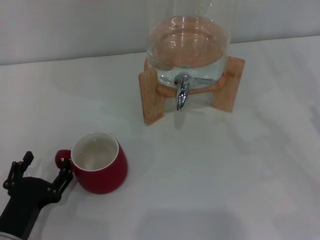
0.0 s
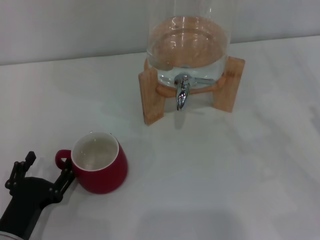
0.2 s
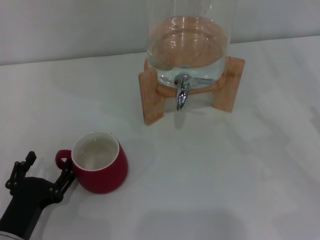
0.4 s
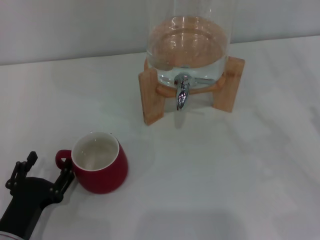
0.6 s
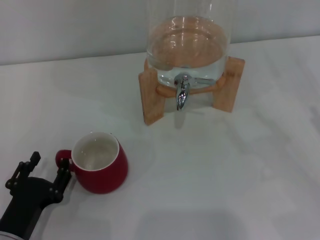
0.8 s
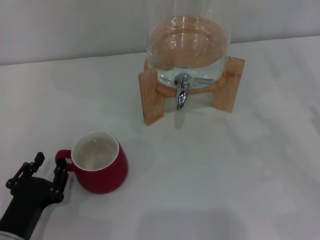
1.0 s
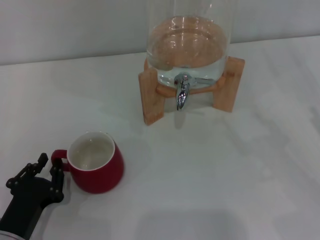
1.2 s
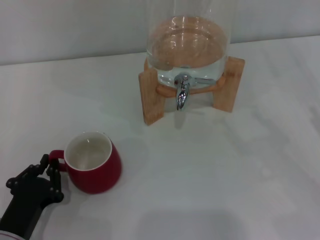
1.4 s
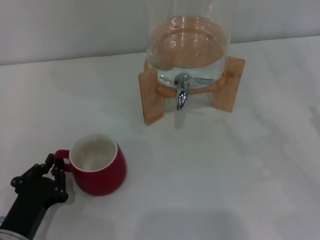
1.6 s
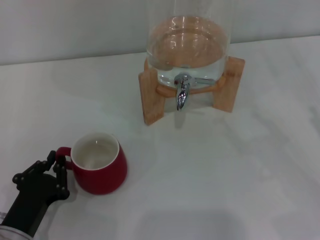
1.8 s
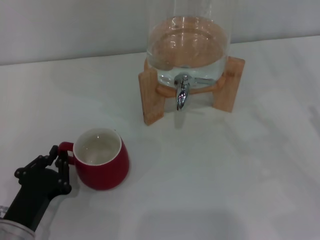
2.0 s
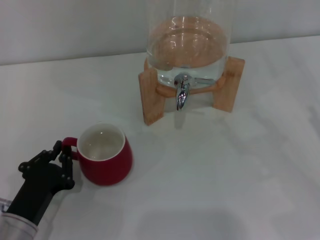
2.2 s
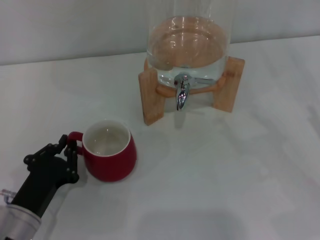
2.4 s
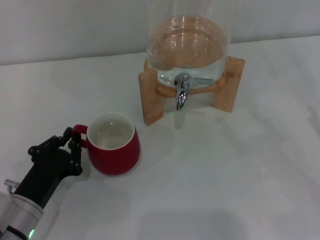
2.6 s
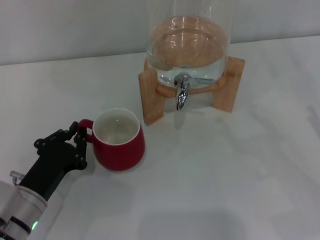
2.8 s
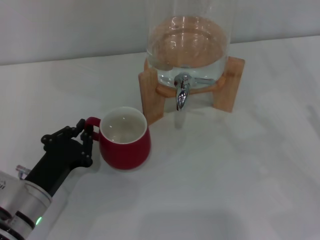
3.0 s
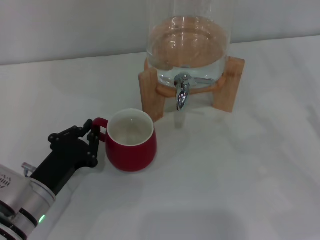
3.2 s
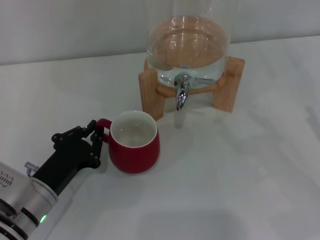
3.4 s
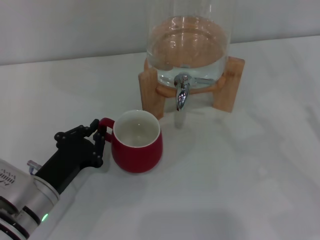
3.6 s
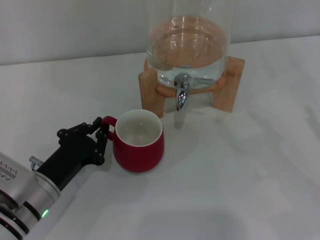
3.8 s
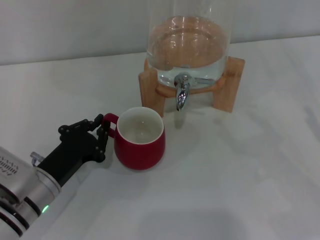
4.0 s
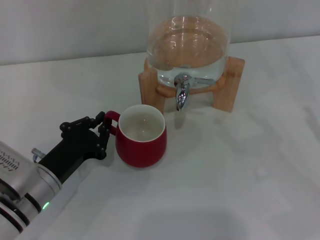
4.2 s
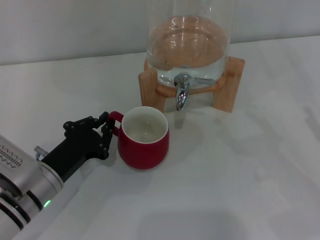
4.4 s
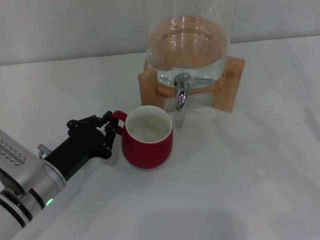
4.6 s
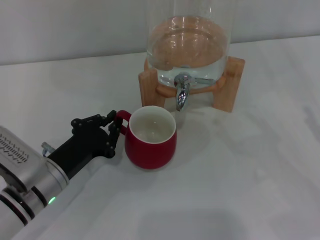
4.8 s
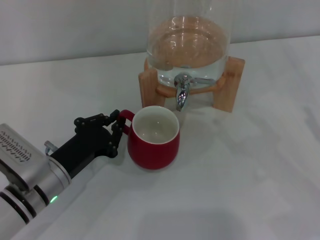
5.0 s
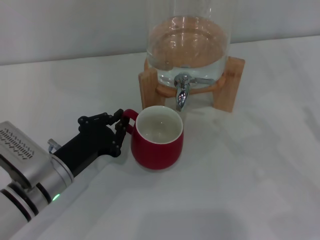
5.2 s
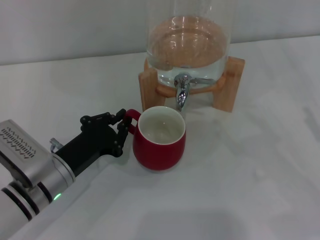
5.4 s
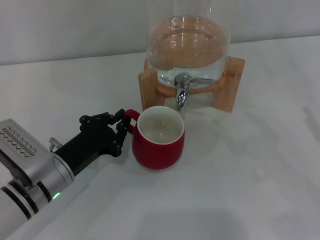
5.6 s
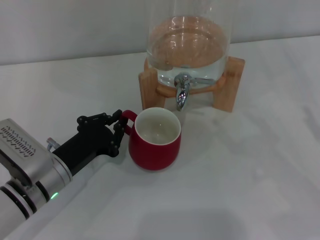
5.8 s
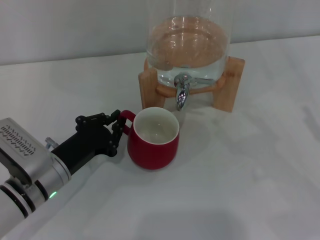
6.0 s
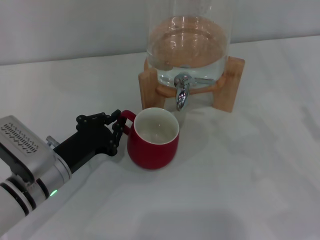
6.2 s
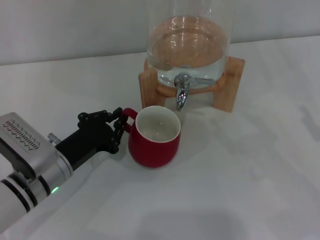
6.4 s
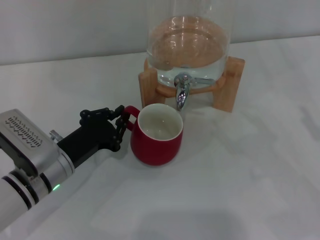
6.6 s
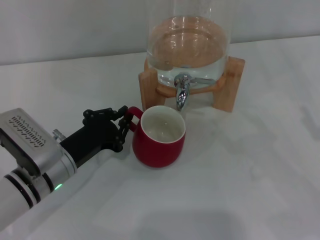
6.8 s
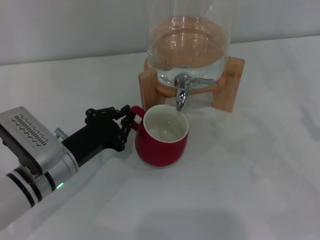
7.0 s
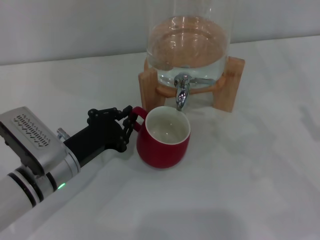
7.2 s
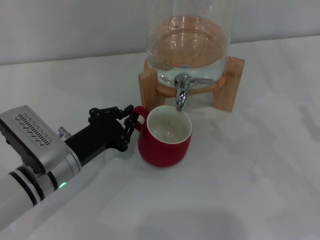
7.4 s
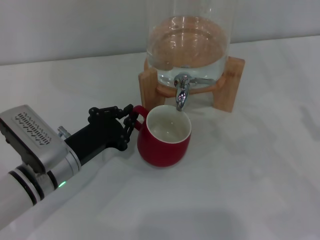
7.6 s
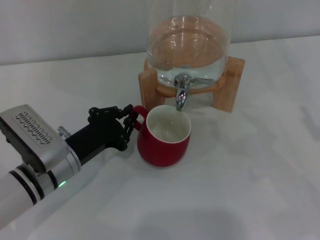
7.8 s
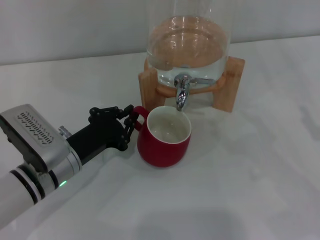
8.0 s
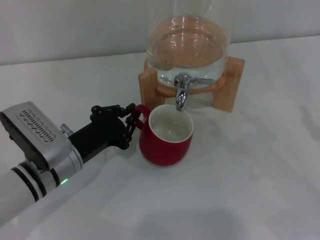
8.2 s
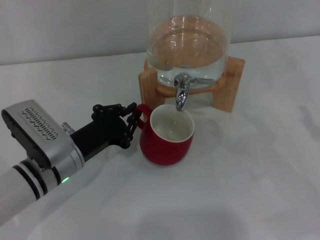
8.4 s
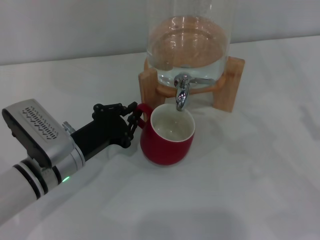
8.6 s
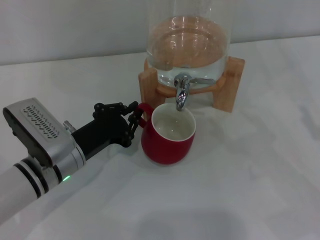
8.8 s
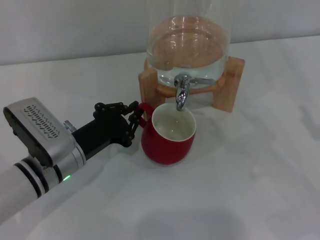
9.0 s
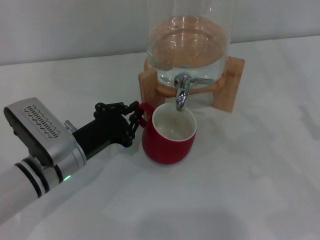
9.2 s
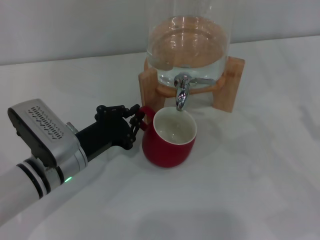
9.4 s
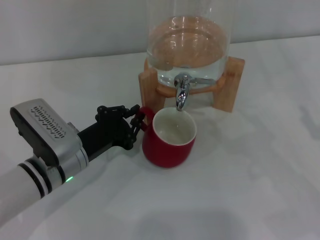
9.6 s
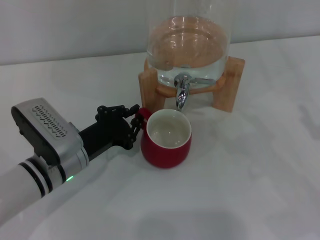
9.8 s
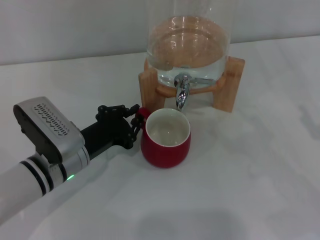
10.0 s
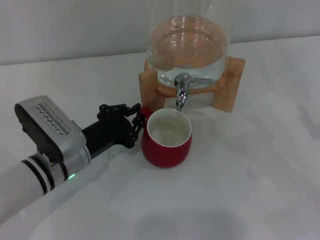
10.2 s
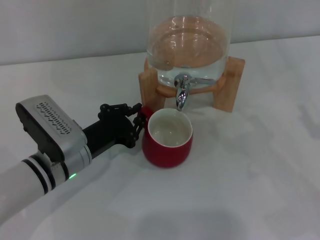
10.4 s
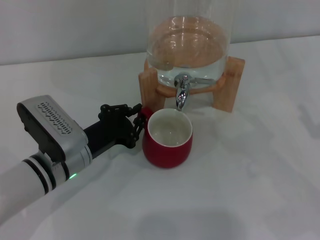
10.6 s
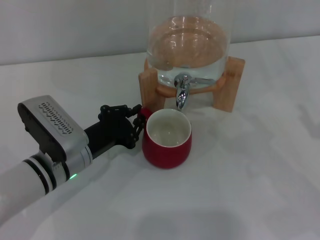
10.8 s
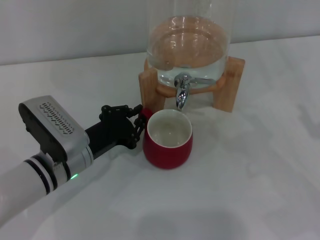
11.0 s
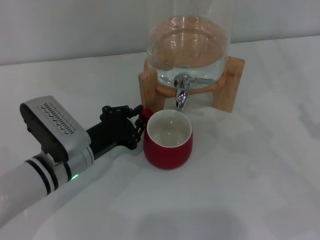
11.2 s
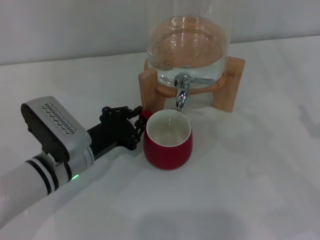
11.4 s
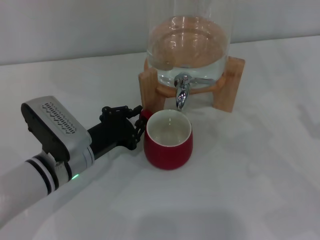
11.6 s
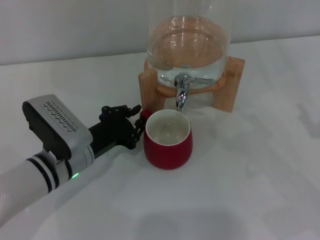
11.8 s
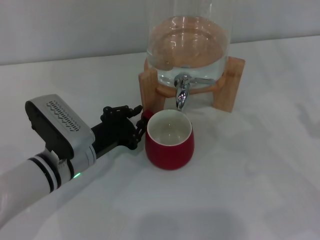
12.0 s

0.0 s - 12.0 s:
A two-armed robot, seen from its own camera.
Task of the whole recording: the left gripper pick up the red cup and place it horizontally under the faucet, the right gripper turn on the faucet to fill the cup, and then turn off the faucet.
0.0 s - 1.6 s: The left gripper closes up.
1.6 s - 3.0 s: The left gripper is displaced forward by about 5 cm.
3.0 s - 6.0 s: The grippers make only small movements.
6.0 s - 7.6 s: The grippers move only a little.
7.6 s - 9.0 s: Neither gripper changes place.
9.0 s - 10.4 s: Neither gripper changes place.
10.4 s - 12.0 s: Neither gripper changes place.

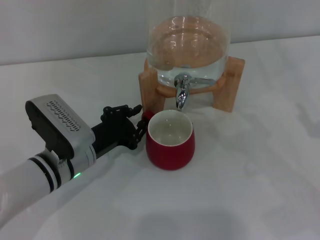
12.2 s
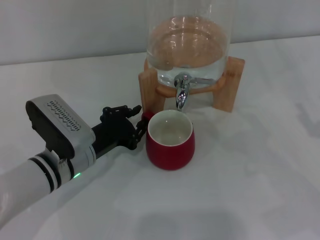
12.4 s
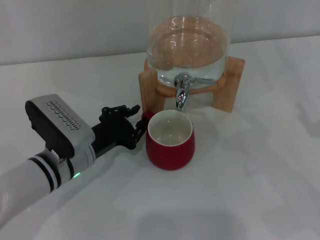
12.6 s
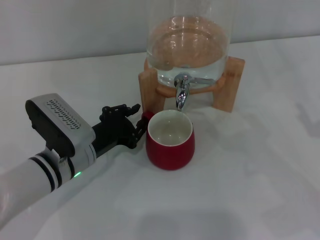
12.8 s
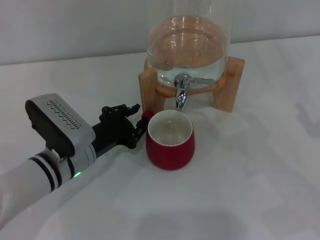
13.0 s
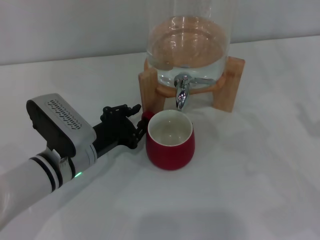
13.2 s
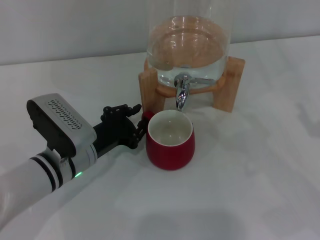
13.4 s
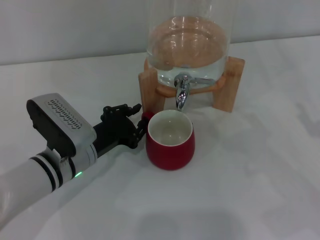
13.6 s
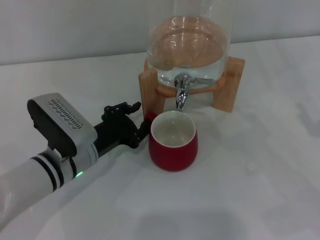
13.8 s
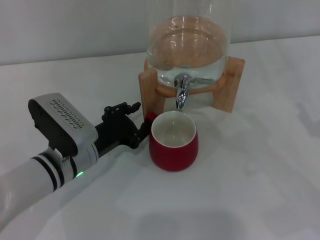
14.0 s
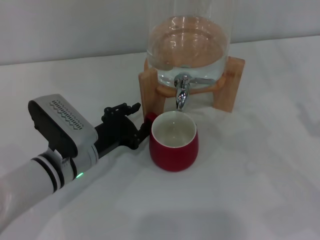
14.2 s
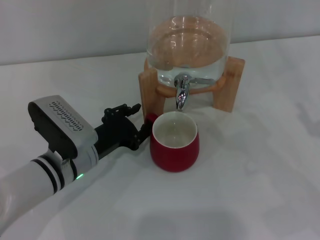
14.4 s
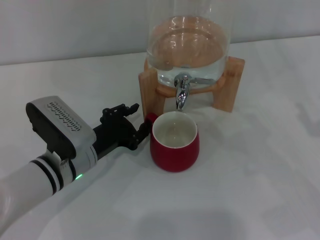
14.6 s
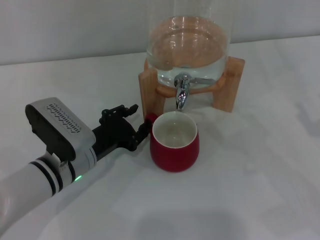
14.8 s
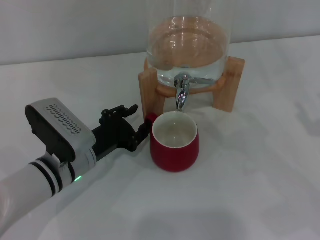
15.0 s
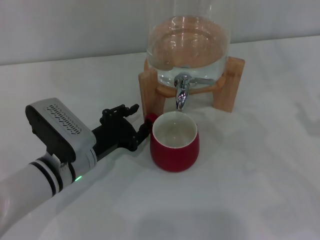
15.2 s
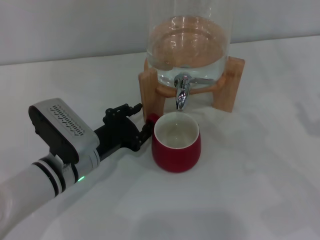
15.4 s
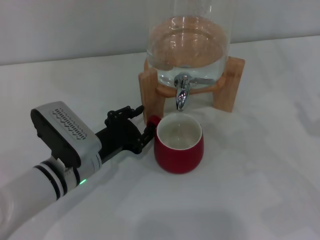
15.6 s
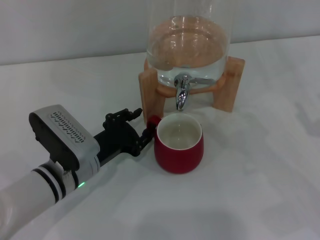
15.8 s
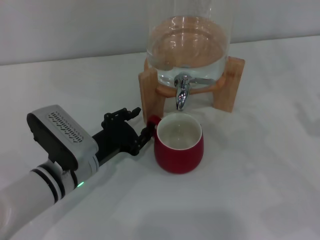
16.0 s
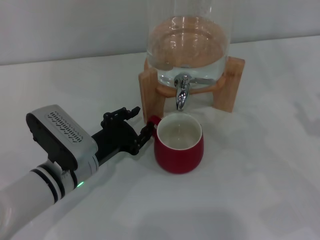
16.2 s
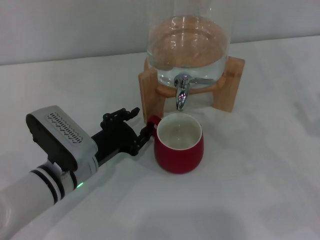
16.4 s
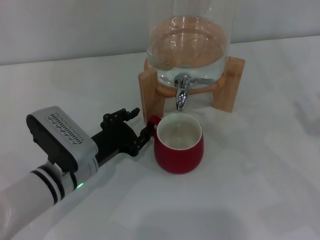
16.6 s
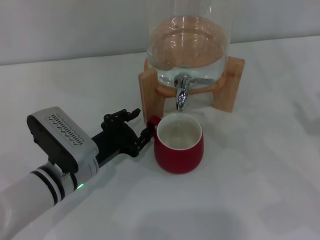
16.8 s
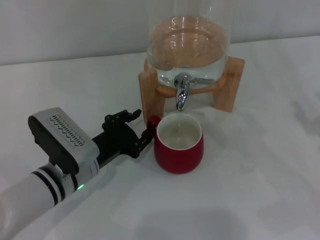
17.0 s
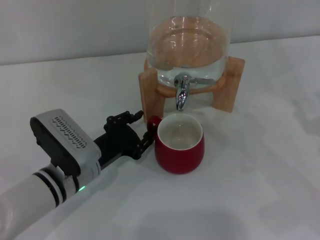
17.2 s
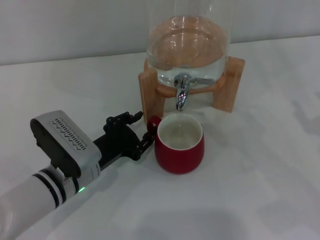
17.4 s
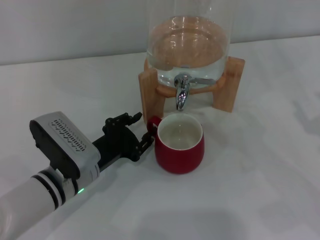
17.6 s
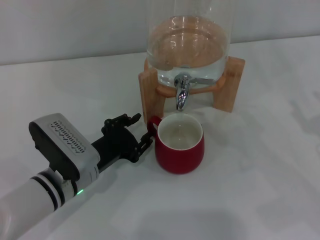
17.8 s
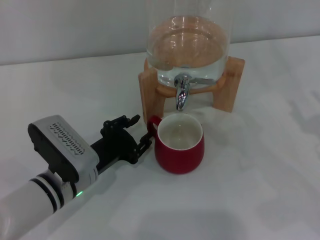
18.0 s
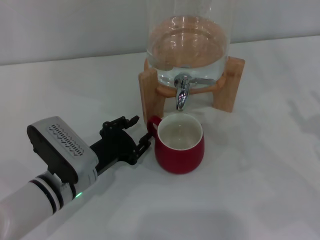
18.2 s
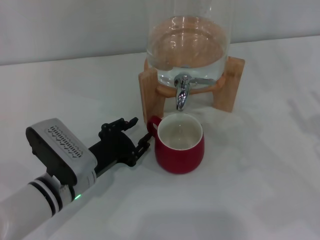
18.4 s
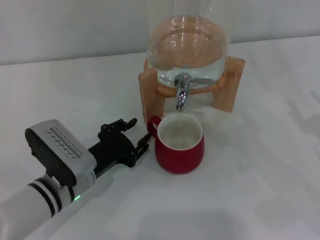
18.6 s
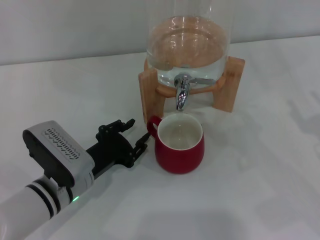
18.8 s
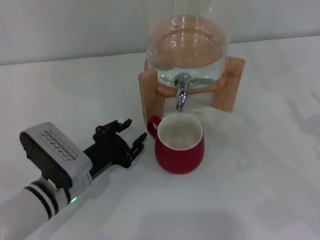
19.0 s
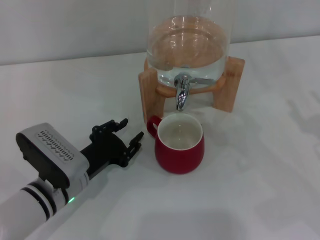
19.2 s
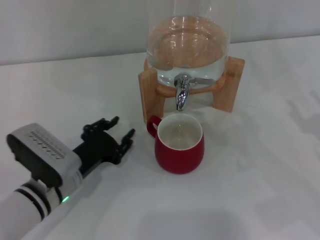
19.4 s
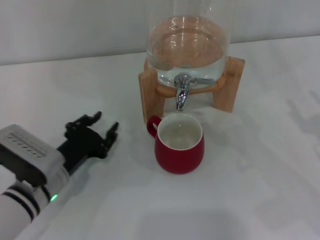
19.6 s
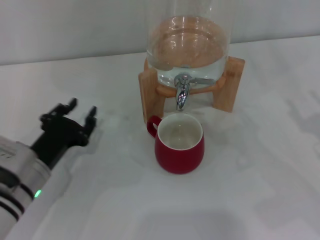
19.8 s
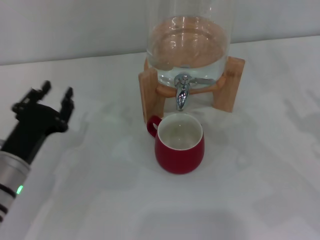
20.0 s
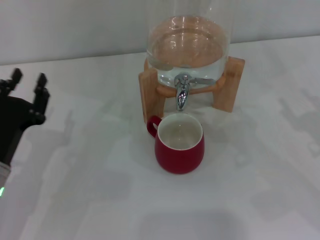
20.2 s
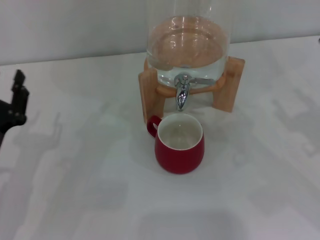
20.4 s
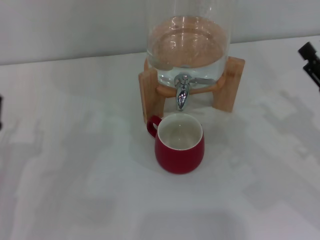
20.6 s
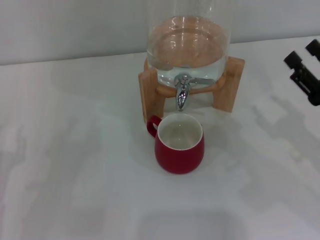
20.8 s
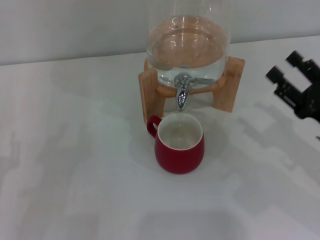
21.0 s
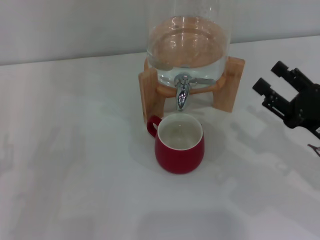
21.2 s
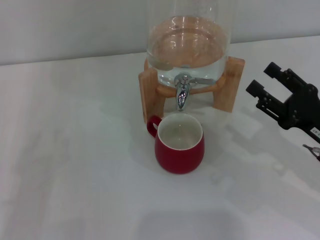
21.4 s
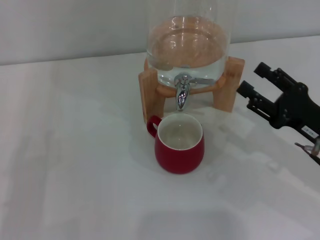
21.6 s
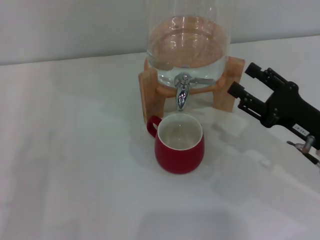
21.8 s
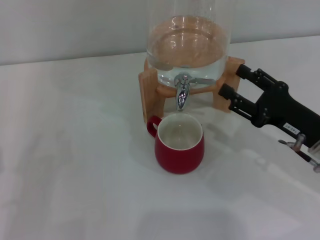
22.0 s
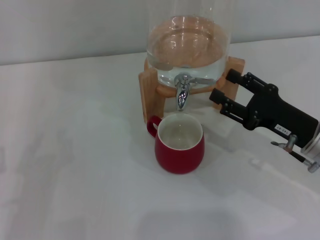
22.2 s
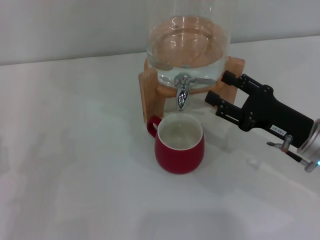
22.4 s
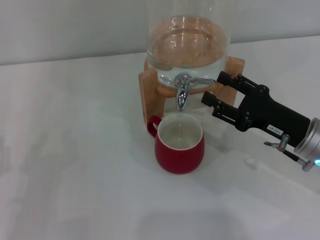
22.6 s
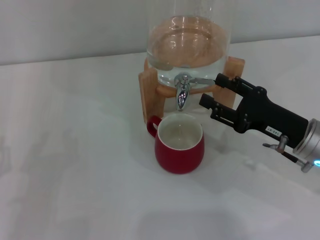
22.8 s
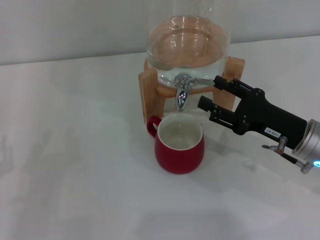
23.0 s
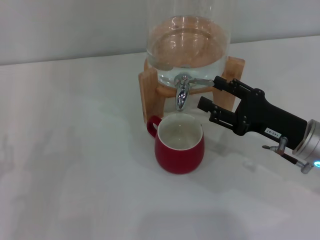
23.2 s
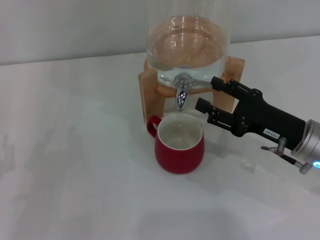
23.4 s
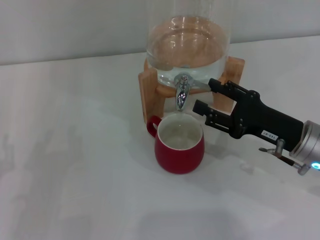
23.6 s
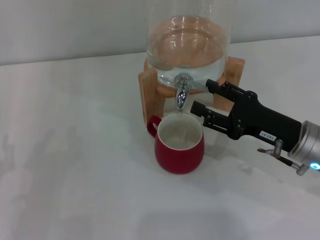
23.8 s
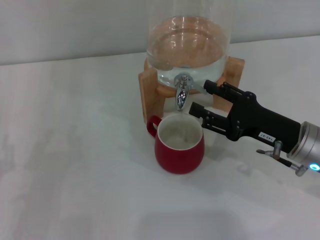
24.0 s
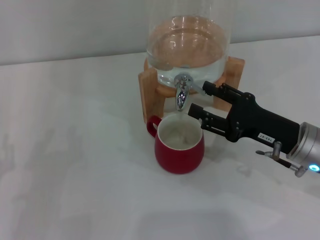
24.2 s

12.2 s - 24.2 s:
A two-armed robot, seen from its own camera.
Task of the whole recording: the left gripper pick up the red cup and place it horizontally under the faucet, the right gripper turn on the faucet to fill the cup, and then turn off the faucet.
Step, 12.2 s - 18.8 s: Move the cup beneath the water dispenser nozzle with the left gripper.
12.2 s - 15.2 s: Both grippers stay about where they are.
15.2 s - 16.6 s: Both grippers stay put.
16.6 s - 18.2 s: Neither gripper changes place.
18.2 s - 19.8 s: The left gripper travels to the left by some 5 cm.
19.8 s - 21.2 s: The left gripper is displaced to the left and backward by roughly 10 cm.
21.2 s - 22.6 s: The right gripper changes place by approximately 5 cm.
22.6 s - 24.2 s: The grippers make only small movements.
